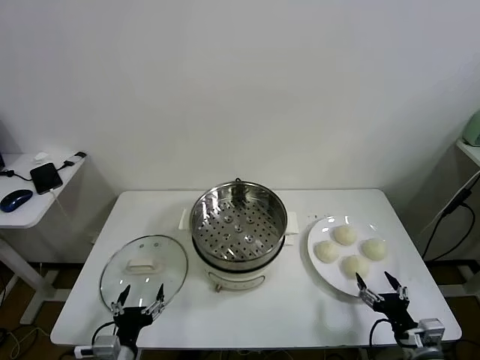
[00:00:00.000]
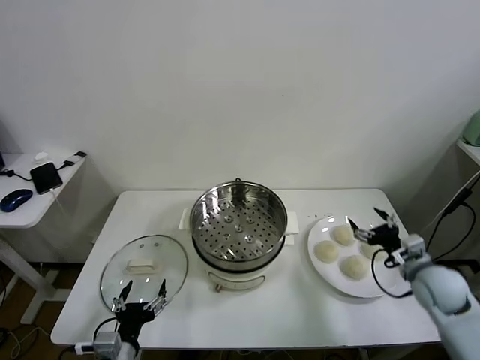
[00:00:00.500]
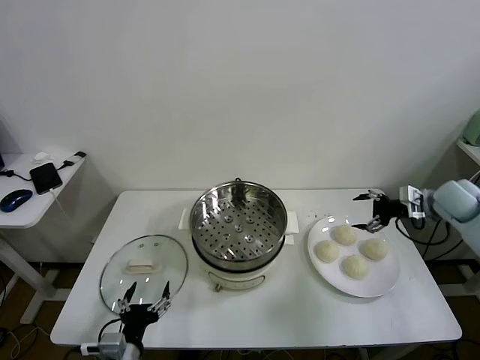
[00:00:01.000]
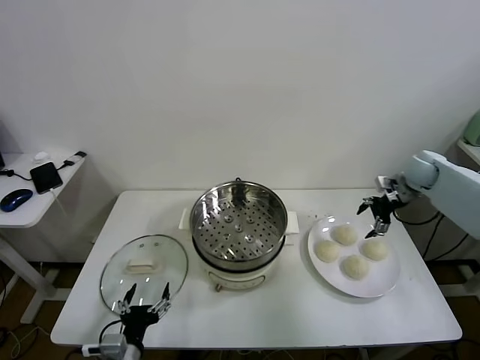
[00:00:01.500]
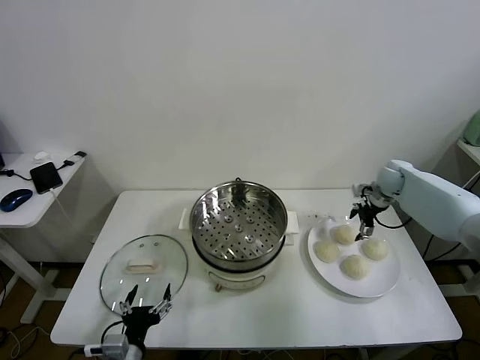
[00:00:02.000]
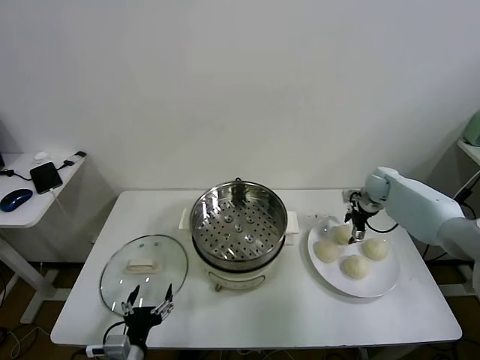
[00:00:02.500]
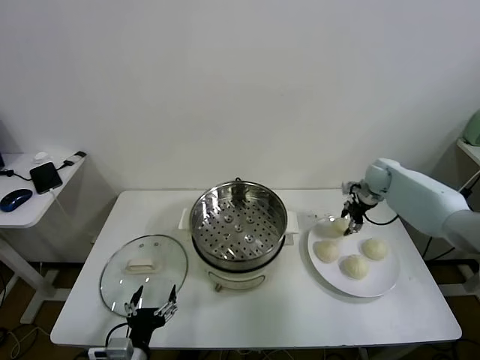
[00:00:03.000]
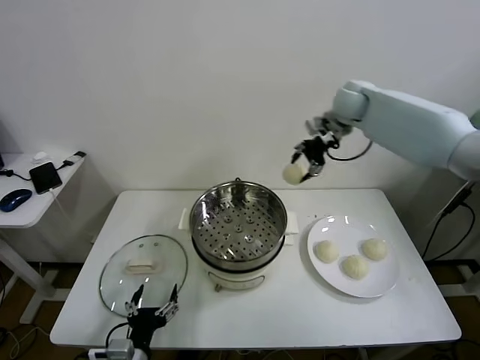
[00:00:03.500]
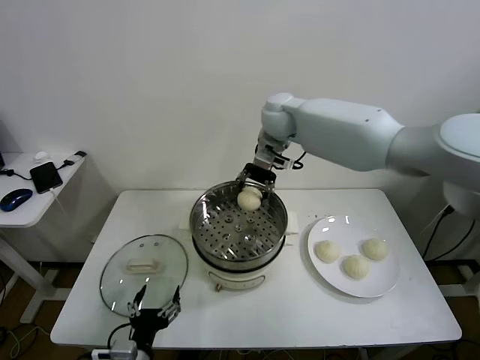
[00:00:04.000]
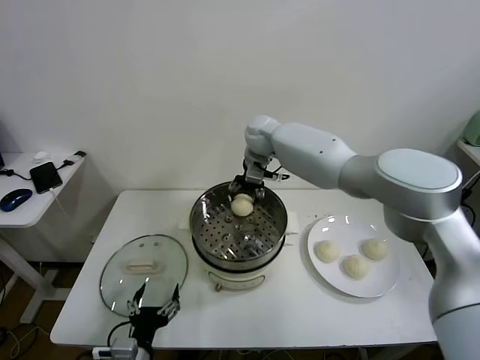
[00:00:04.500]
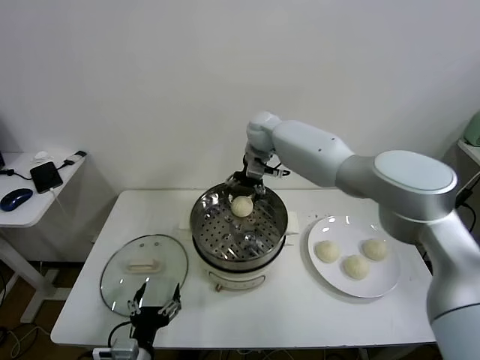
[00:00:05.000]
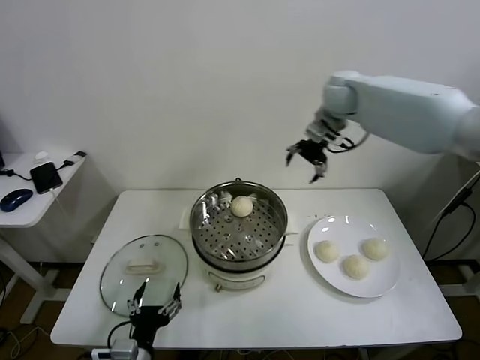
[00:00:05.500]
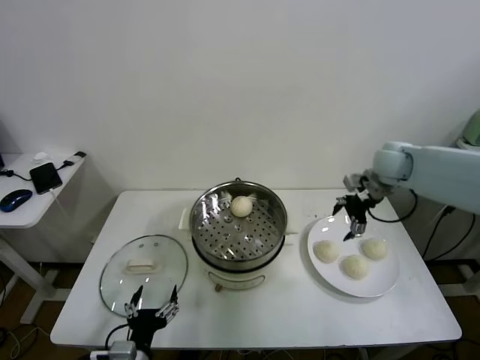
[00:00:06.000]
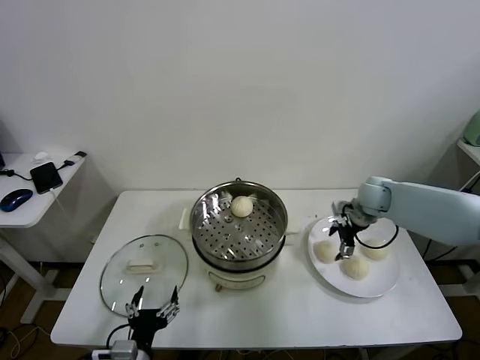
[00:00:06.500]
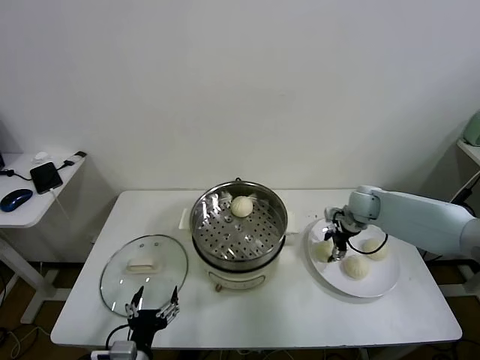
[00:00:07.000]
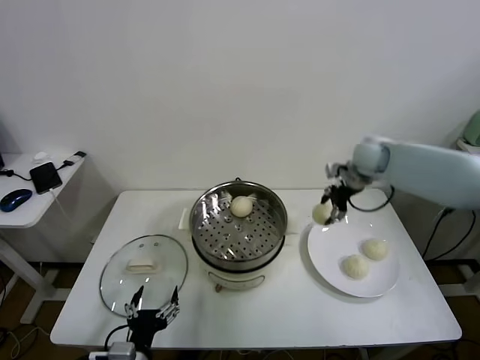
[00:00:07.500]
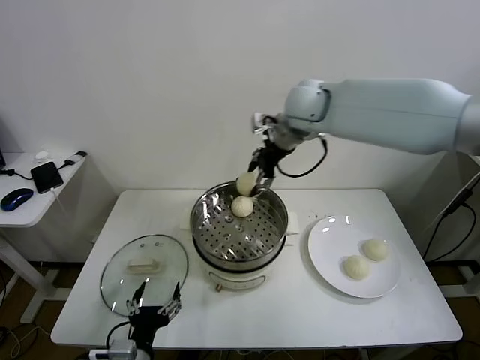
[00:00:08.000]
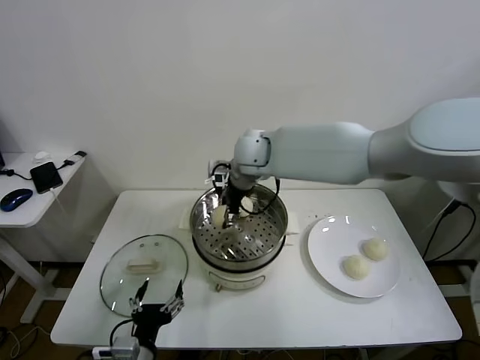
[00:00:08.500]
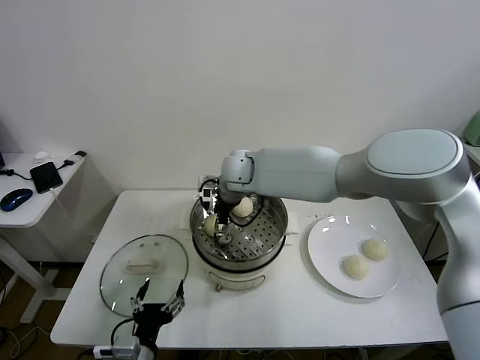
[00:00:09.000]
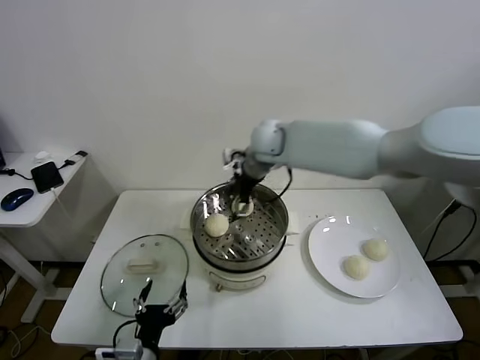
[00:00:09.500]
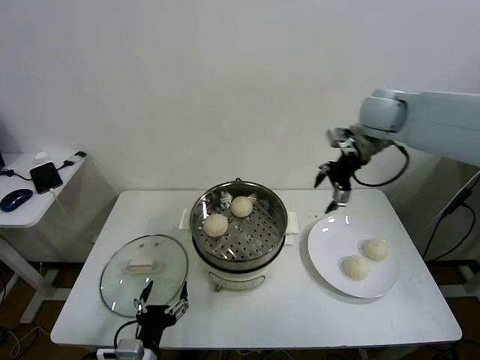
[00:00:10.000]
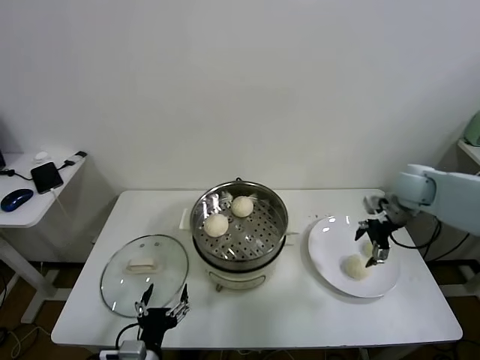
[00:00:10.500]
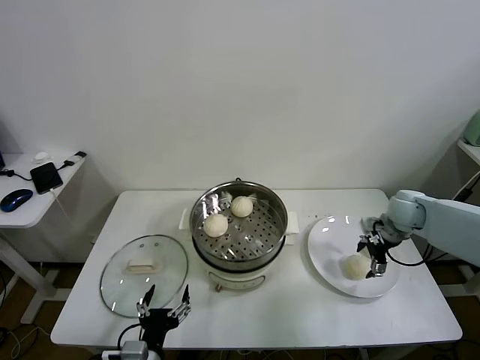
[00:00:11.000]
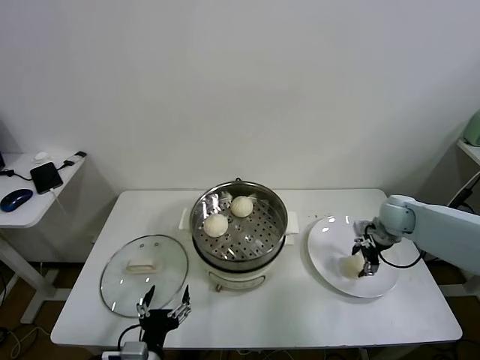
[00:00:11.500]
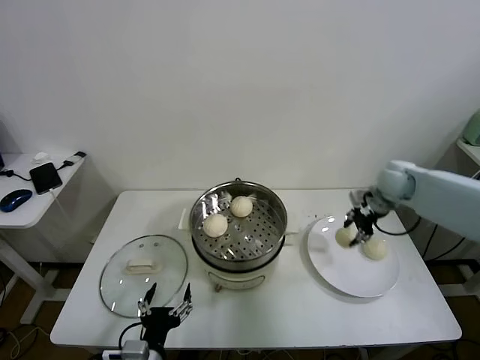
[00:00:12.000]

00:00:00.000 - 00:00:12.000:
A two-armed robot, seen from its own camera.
Task of the whole recording: take steamed baozi put them in steamer.
Step, 00:00:00.000 - 00:00:02.500: Grasp the baozi in the plate with right gripper.
Step, 00:00:03.000 - 00:00:04.500: Place the baozi on the steamer with right gripper.
Step, 00:00:05.000 - 00:00:07.000: Grasp the baozi in the plate with right gripper.
Step, 00:00:07.500 - 00:00:09.000: Place the baozi on the steamer with right gripper.
Step, 00:00:09.500 - 00:00:11.500: Grasp the baozi in the plate with right gripper.
00:00:02.000 - 00:00:04.000: The right gripper is displaced to the left and upward by roughly 40 cm, and closes its fingers.
00:00:04.000 - 00:00:06.000: The right gripper heads to the right, covering approximately 25 cm, and opens its fingers.
00:00:06.000 - 00:00:08.000: The right gripper heads to the left and upward, covering some 25 cm, and closes.
00:00:08.000 - 00:00:10.000: The right gripper heads to the right, covering about 15 cm, and opens up.
00:00:10.000 - 00:00:12.000: The right gripper moves downward and to the right, roughly 20 cm, and closes up.

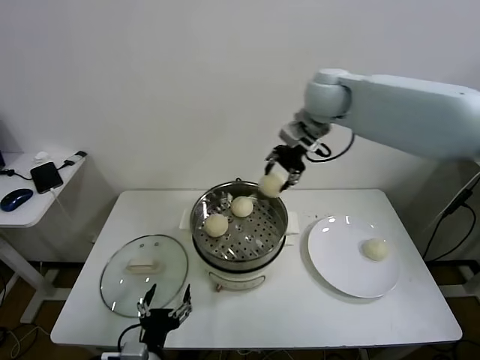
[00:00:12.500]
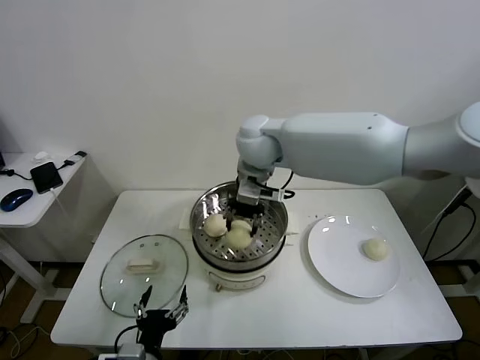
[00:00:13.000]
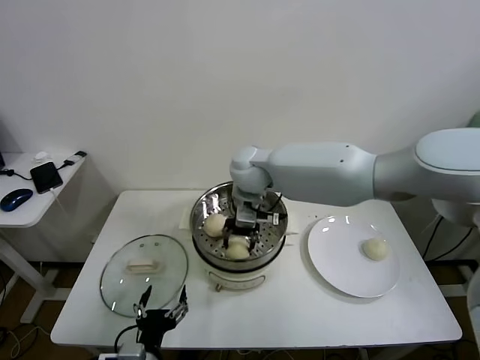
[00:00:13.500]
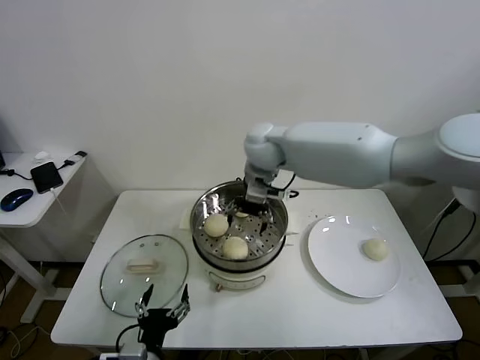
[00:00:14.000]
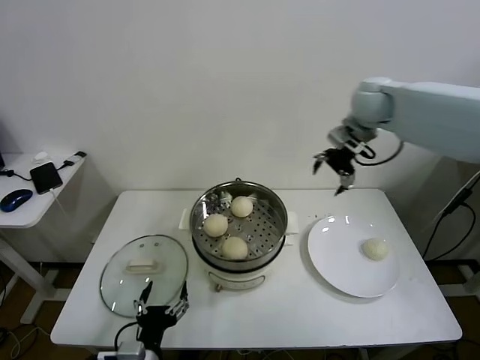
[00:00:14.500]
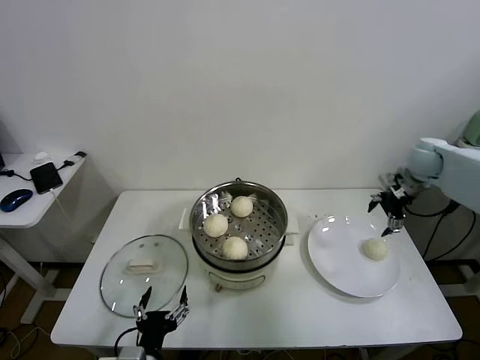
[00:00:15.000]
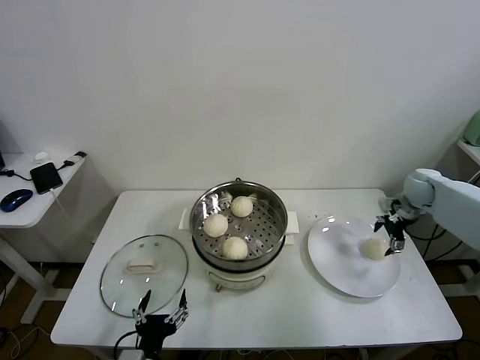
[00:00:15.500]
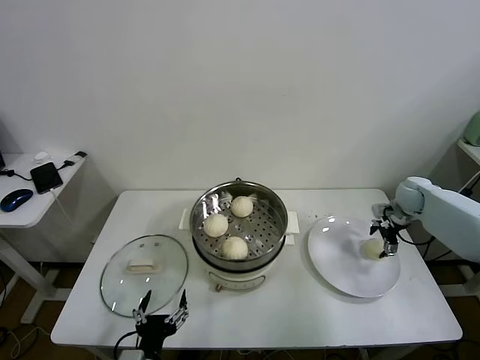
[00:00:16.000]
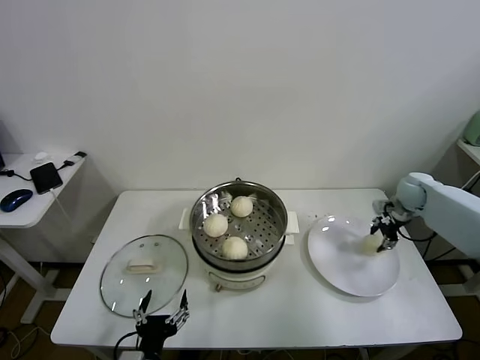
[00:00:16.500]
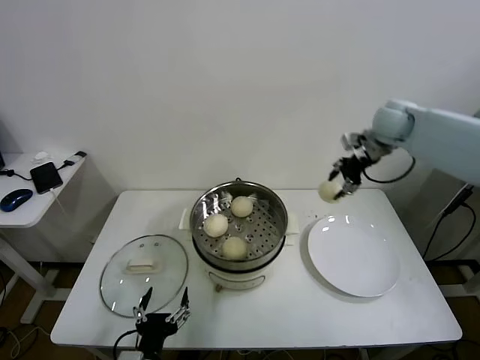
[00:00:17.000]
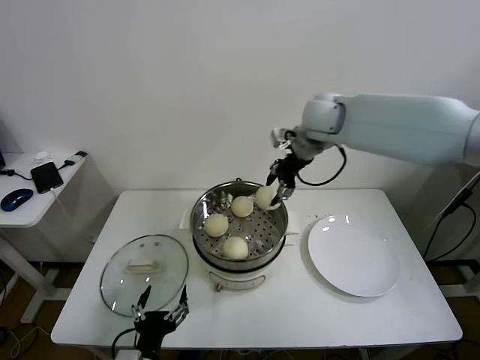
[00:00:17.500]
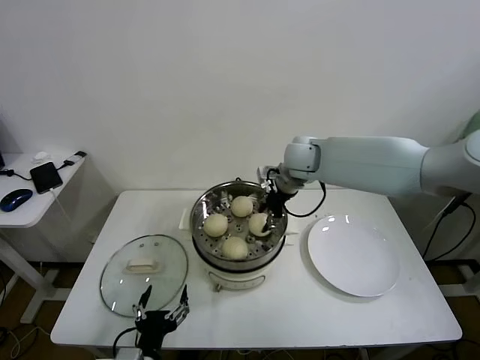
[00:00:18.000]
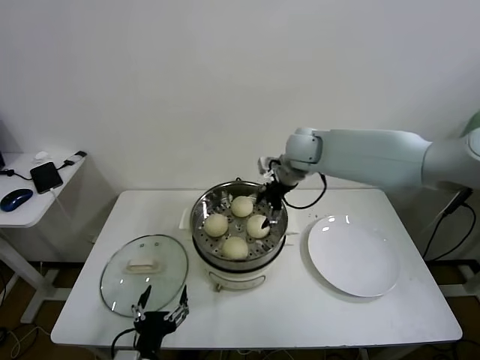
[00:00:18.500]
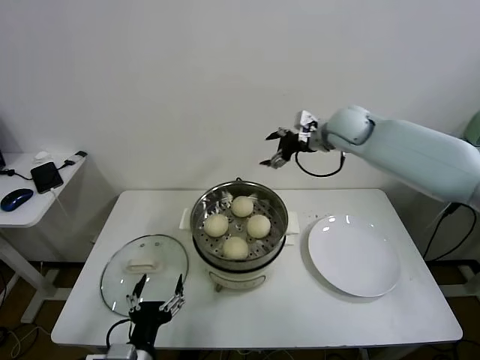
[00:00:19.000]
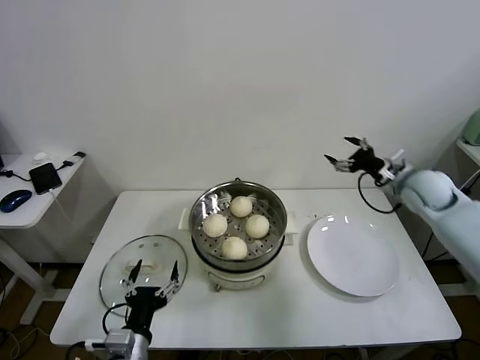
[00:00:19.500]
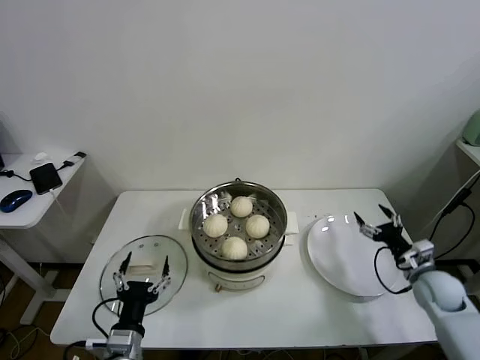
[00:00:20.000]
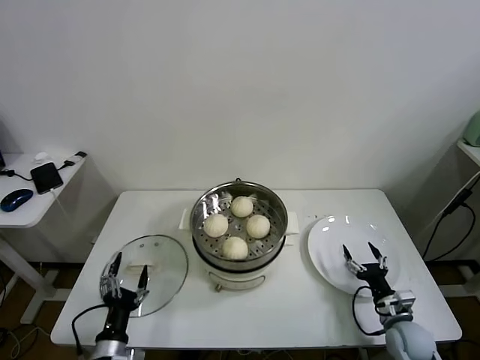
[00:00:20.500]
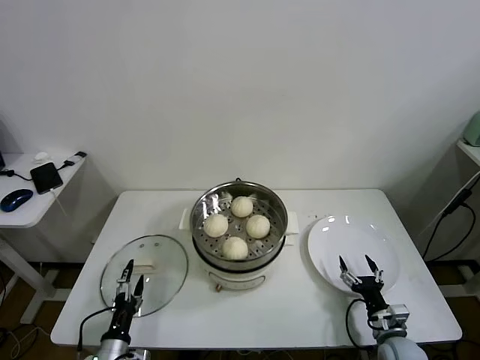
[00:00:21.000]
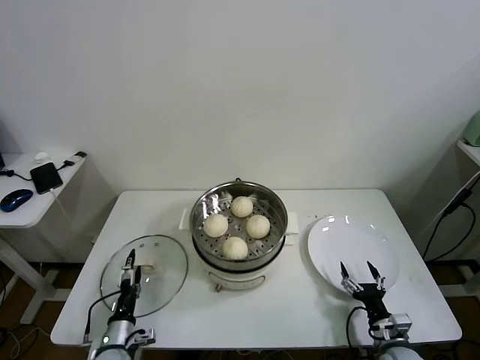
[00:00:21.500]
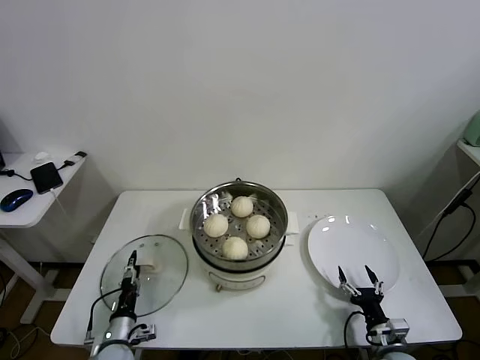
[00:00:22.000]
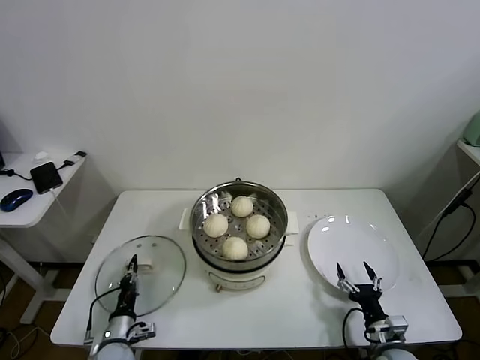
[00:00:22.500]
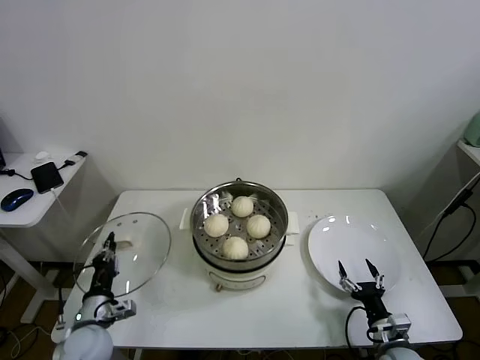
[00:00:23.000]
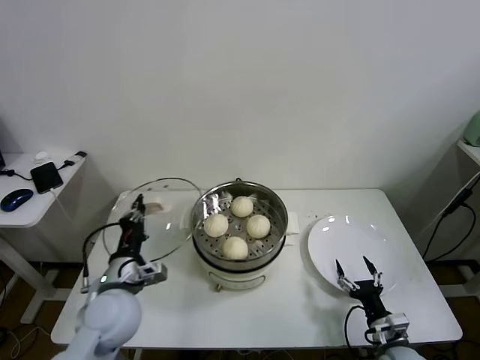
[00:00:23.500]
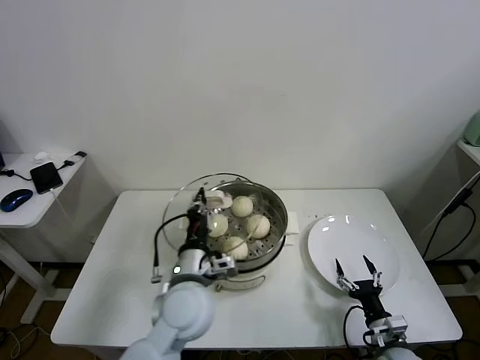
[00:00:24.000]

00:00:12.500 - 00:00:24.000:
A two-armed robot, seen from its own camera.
Task of the whole recording: take steamed baozi put them in steamer.
Step, 00:00:14.000 - 00:00:16.000: Grasp the baozi in the plate with right gripper.
Step, 00:00:16.500 - 00:00:18.000: Place the baozi on the steamer with right gripper.
Step, 00:00:18.500 - 00:00:22.500: Grasp the pot lid with left gripper.
00:00:12.500 - 00:00:14.500: The right gripper moves to the right, roughly 10 cm, and opens.
00:00:14.500 - 00:00:16.500: The right gripper shifts about 30 cm downward and to the right, and closes up.
00:00:16.500 - 00:00:18.500: The right gripper heads to the left and upward, covering some 35 cm, and opens its fingers.
00:00:18.500 - 00:00:20.000: The left gripper ends up about 5 cm from where it was, while the right gripper heads to the right, downward and backward, covering approximately 40 cm.
00:00:20.000 - 00:00:22.000: The left gripper moves downward, to the left and forward, about 20 cm. The right gripper heads backward, downward and to the left, covering roughly 25 cm.
00:00:22.000 - 00:00:24.000: The left gripper is displaced upward and to the right by approximately 30 cm, and closes.

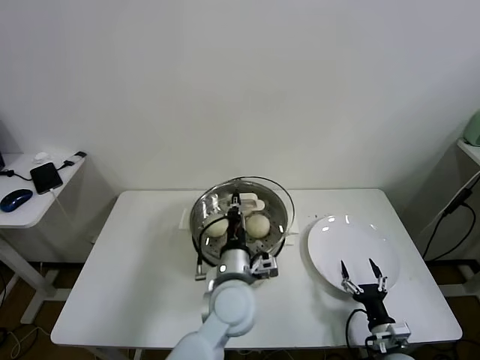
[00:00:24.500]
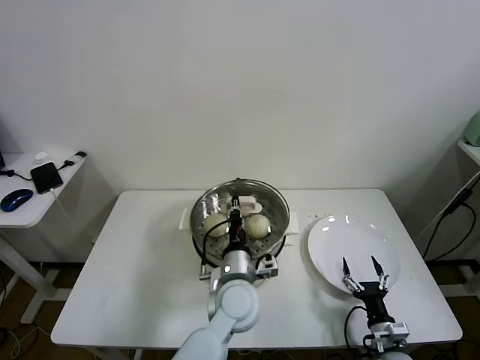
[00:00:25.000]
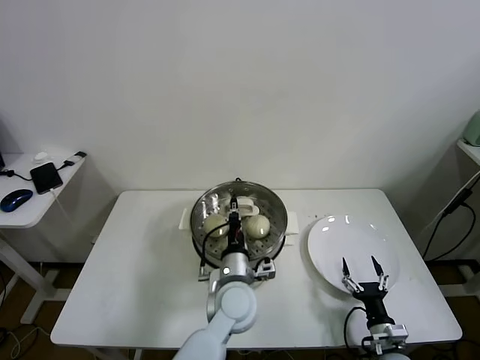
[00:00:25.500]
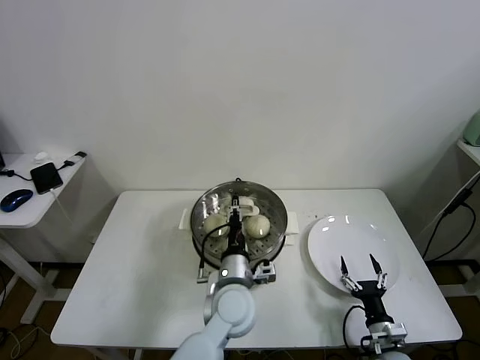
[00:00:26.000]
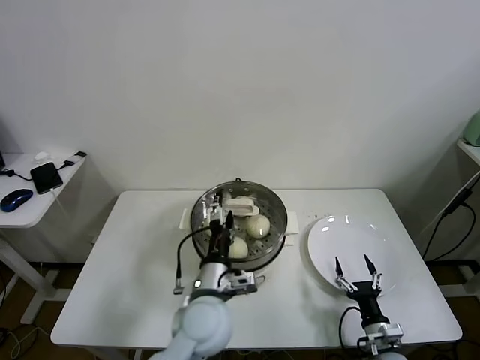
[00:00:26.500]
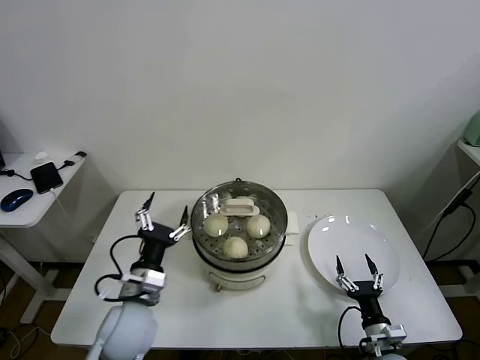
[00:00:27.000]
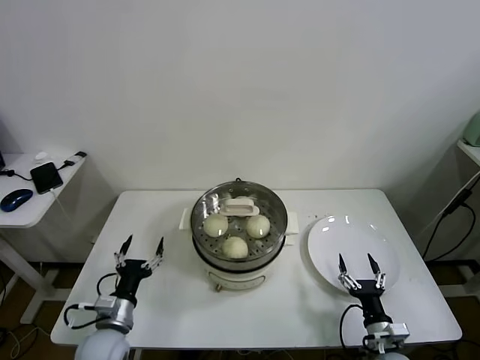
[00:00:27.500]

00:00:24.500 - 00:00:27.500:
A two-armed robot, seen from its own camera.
Task of the whole recording: take steamed baozi put them in steamer.
00:00:24.500 - 00:00:26.000: The grippers stay close to where they were, moving slightly.
00:00:26.000 - 00:00:27.500: The left gripper moves to the left, some 25 cm, and opens up.
